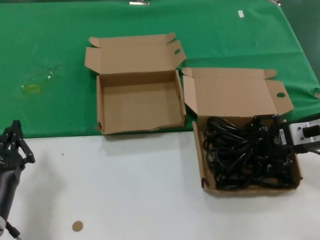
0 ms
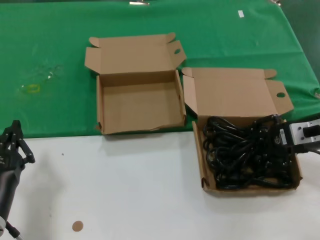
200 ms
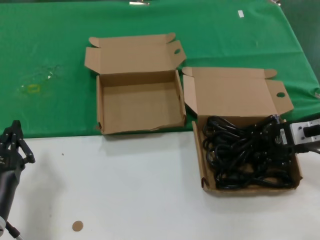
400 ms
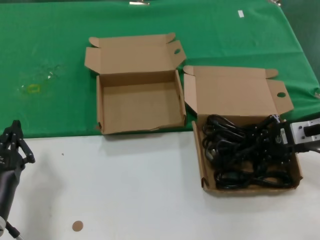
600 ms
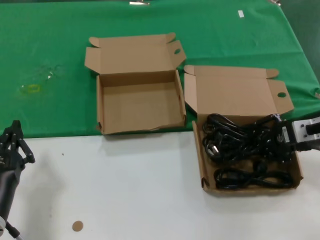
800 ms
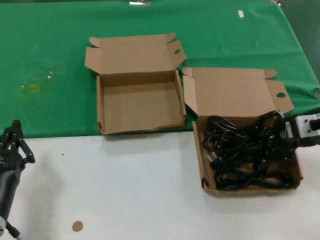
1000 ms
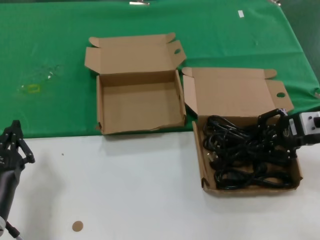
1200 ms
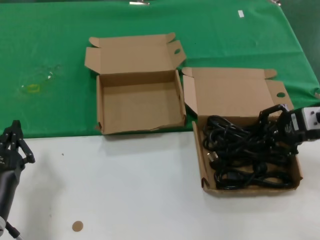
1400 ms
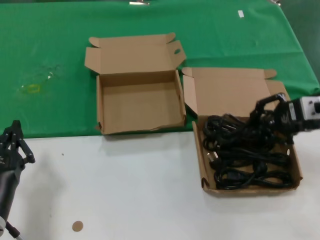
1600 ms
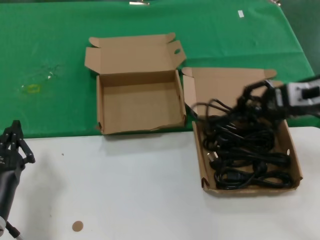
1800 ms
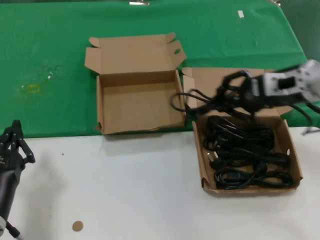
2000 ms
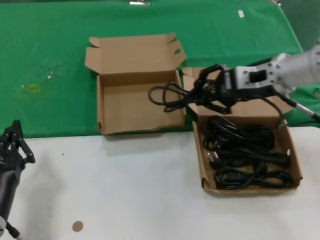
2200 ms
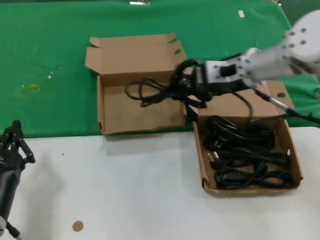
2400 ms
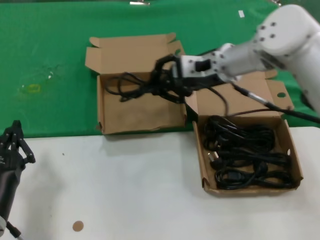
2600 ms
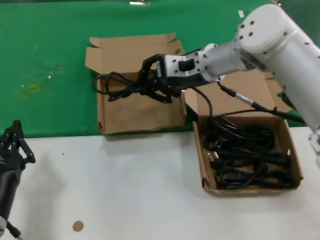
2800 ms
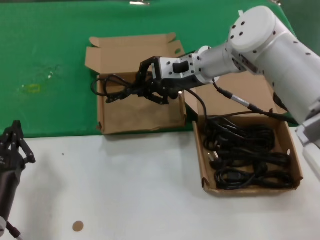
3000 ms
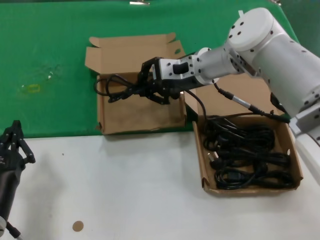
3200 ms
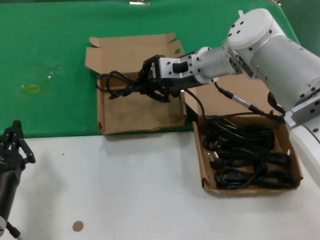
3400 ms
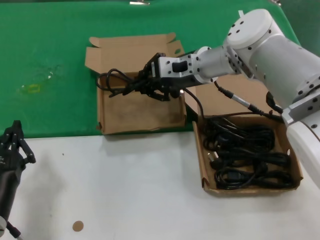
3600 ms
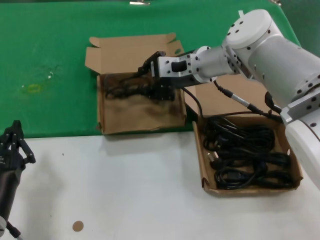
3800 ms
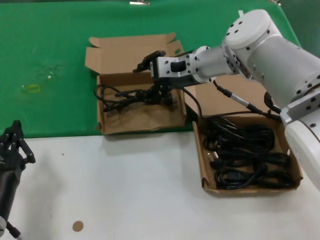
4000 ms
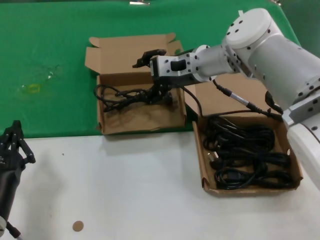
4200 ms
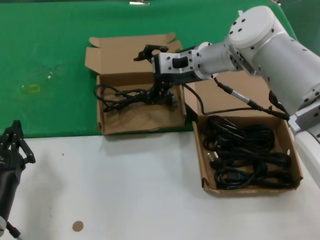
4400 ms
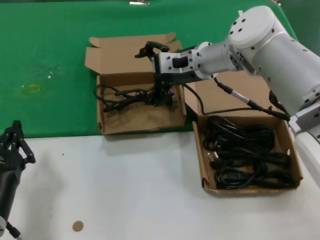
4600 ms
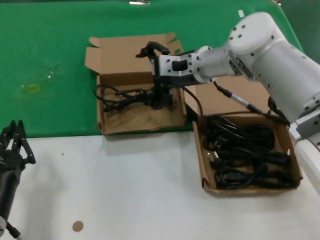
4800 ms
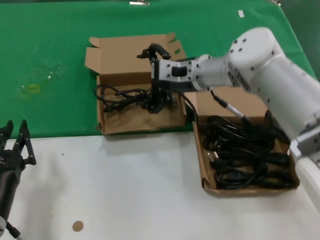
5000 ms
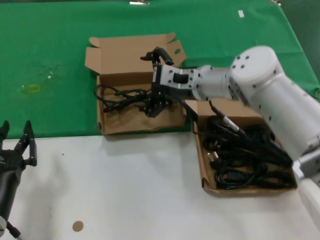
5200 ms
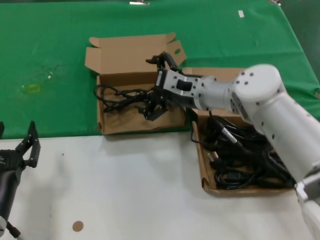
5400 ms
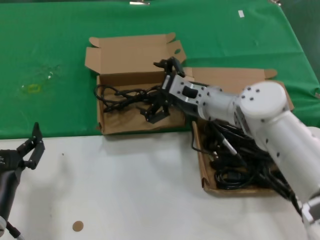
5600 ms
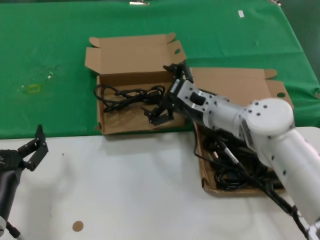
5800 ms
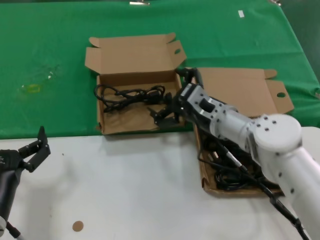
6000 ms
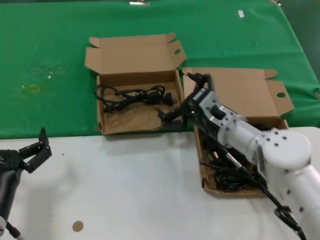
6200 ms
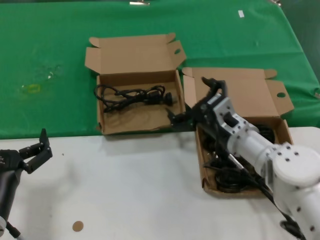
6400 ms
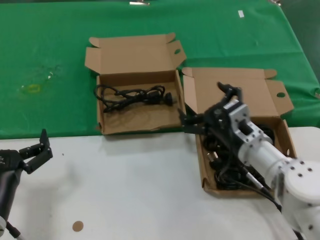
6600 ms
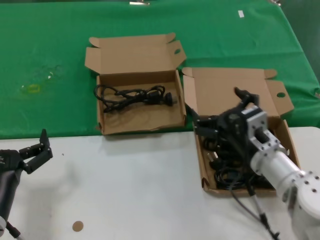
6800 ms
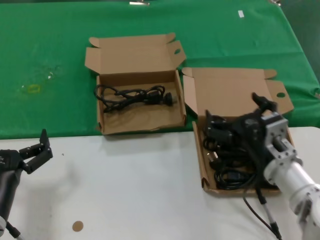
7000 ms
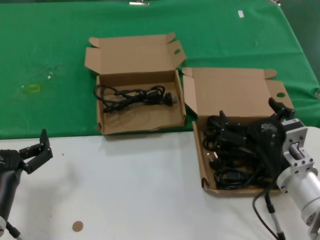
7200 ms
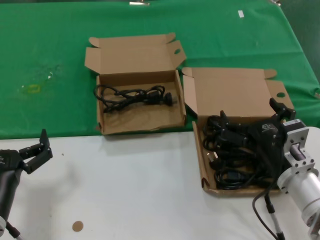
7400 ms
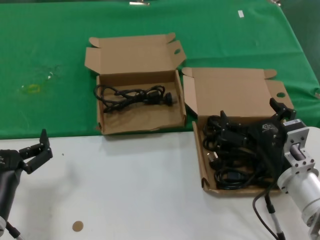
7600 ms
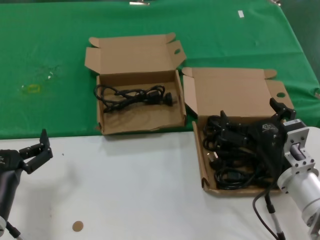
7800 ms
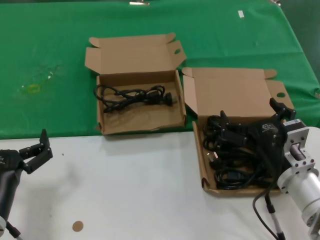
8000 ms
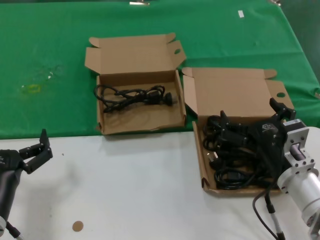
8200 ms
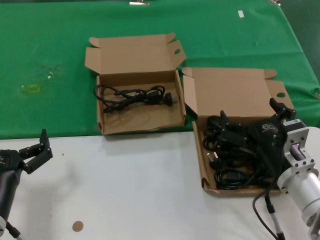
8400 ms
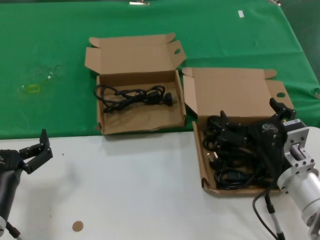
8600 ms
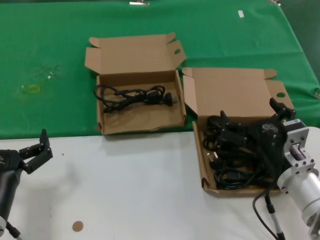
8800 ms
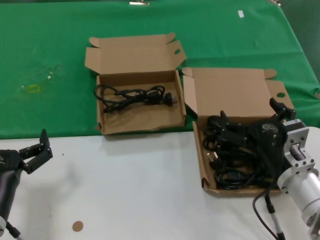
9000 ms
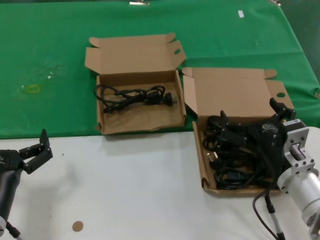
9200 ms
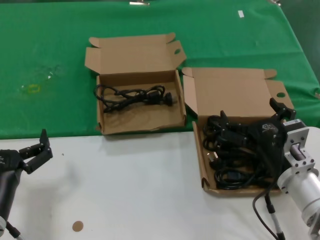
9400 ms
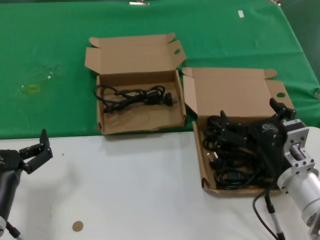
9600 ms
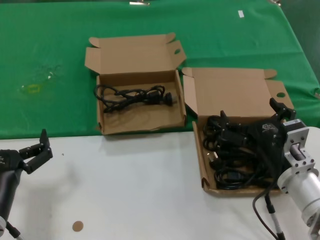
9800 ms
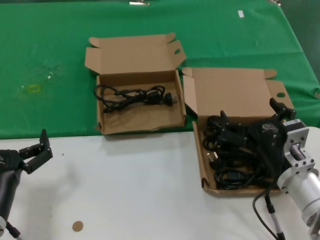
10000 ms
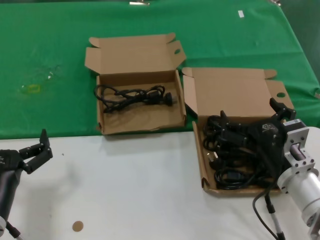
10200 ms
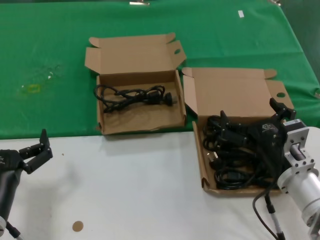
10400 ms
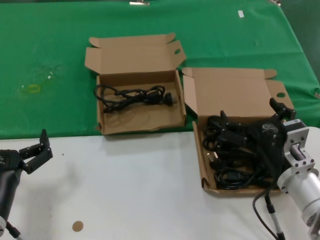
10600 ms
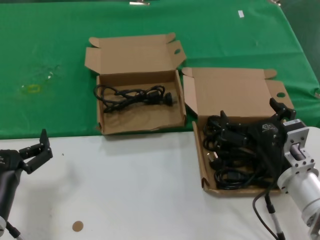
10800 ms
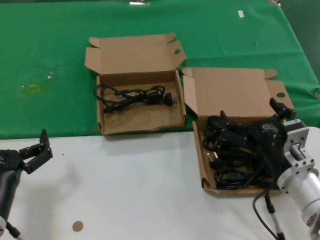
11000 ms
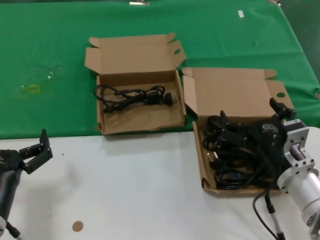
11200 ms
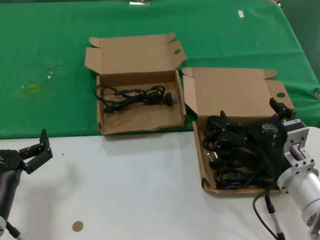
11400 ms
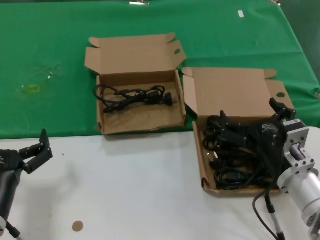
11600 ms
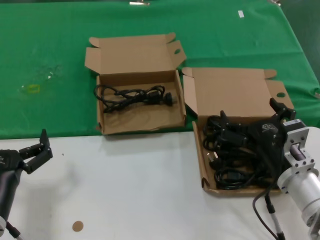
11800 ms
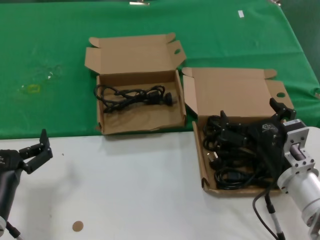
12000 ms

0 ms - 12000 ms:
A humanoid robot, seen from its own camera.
Task of the whole recording: take the parts from the box containing them and put them into an empty box.
Step, 800 ms - 4200 ms: Place the data cable in the another box.
0 ms - 1600 ms: The right hand shifts about 5 cm upward.
1600 ms - 3000 ms: The right hand heads to the left and forward, covering approximately 25 cm.
3000 ms - 4400 ms: The hands move only a little.
4400 ms - 6000 ms: The right hand moves downward and backward, roughly 15 cm.
6000 ms - 7600 ms: The right hand goes approximately 20 cm backward and to the right.
7600 ms - 12000 ms: Both hands stay put.

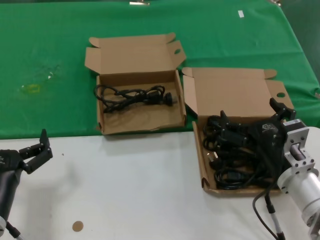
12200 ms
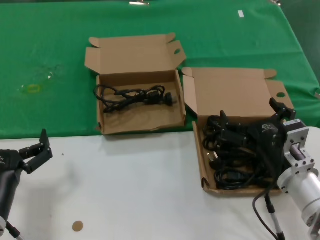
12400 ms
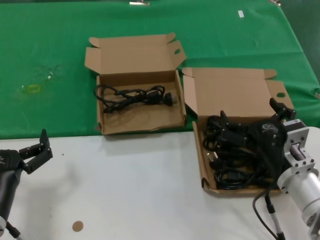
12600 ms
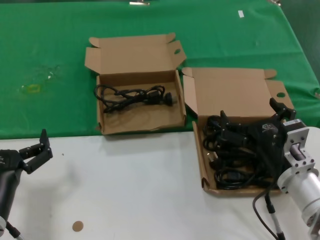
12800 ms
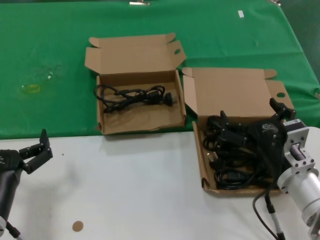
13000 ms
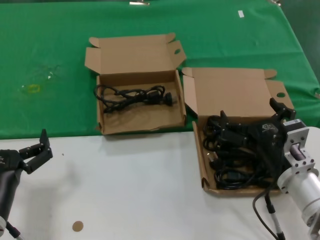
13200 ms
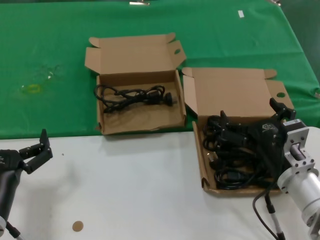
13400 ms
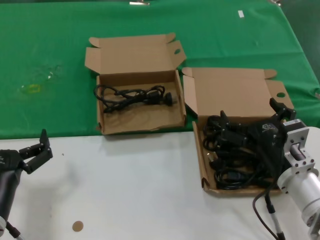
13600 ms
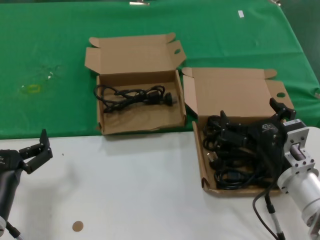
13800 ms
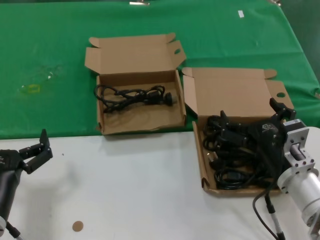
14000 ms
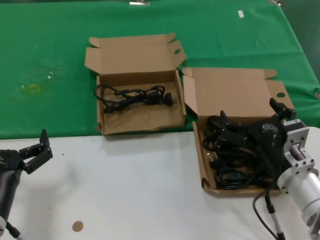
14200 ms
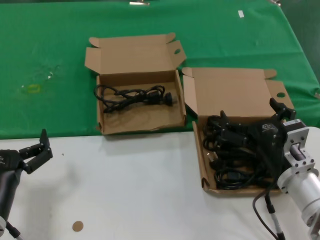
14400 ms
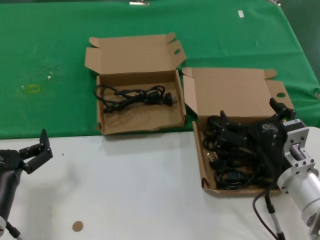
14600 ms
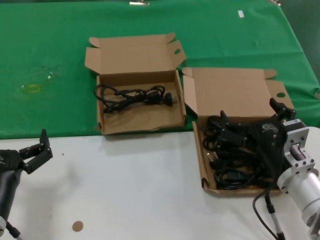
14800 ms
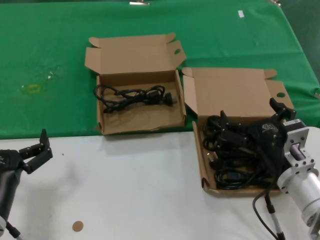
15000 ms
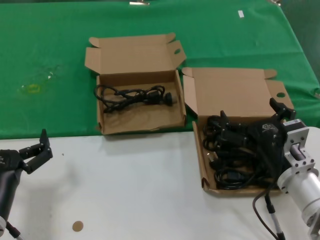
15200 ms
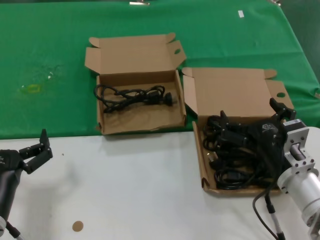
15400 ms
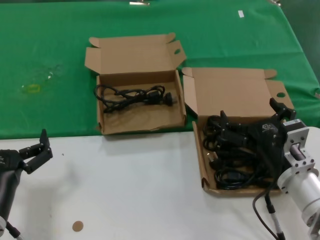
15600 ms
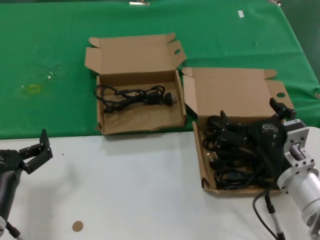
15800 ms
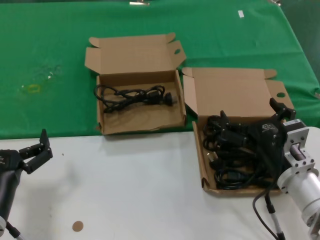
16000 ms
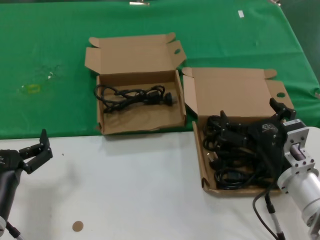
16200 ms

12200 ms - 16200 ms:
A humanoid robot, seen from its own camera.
Task of the whole recording: take the parts from the box containing them and put them into an empty box.
12200 ms - 16200 ms: Both hands stay about where they are.
